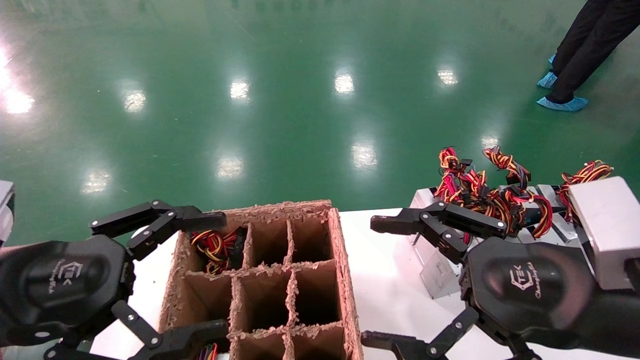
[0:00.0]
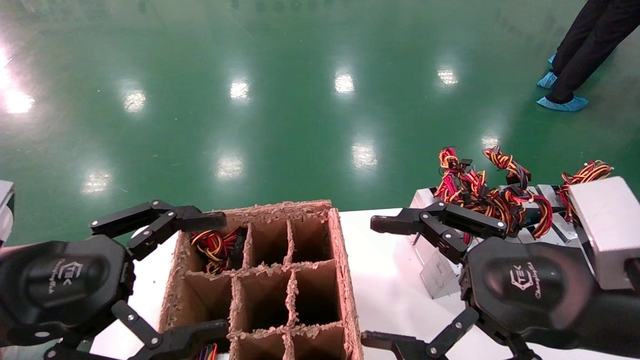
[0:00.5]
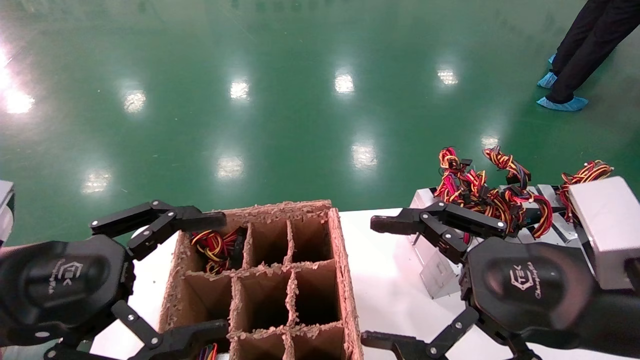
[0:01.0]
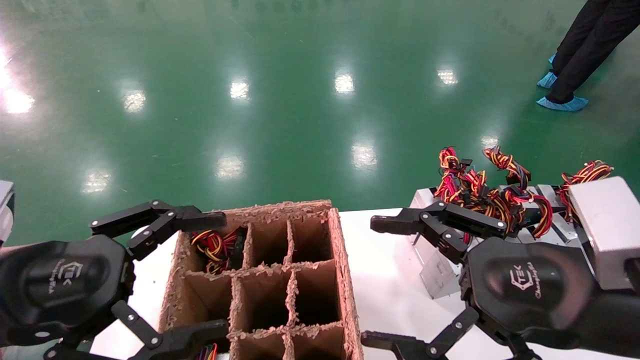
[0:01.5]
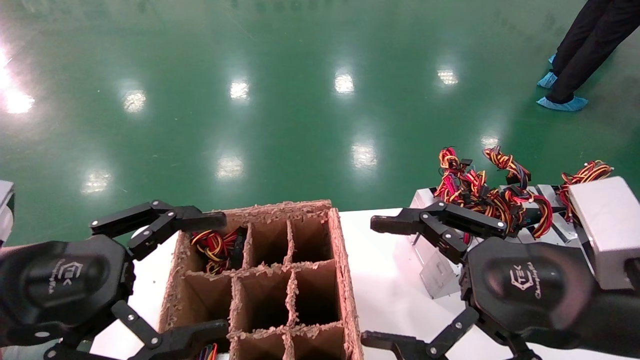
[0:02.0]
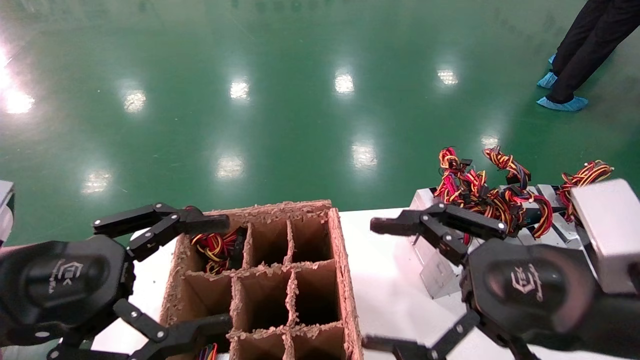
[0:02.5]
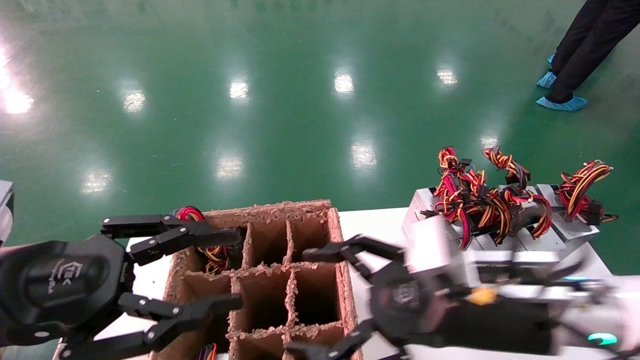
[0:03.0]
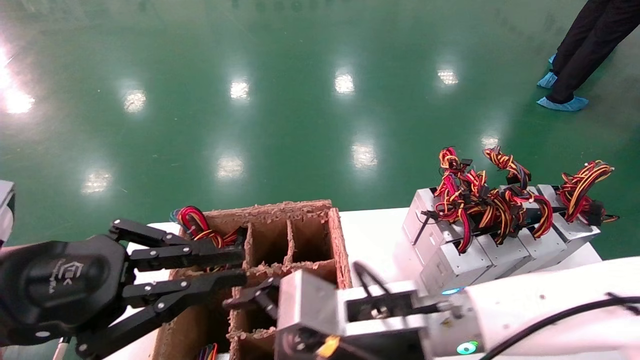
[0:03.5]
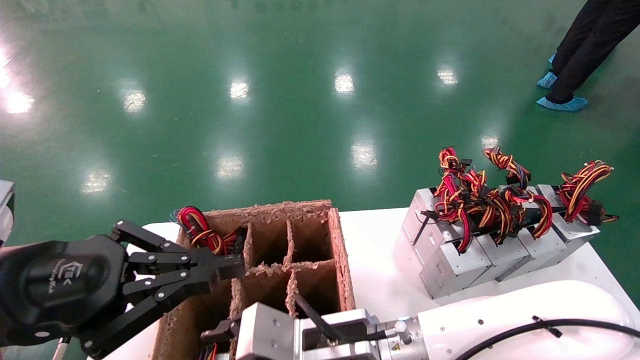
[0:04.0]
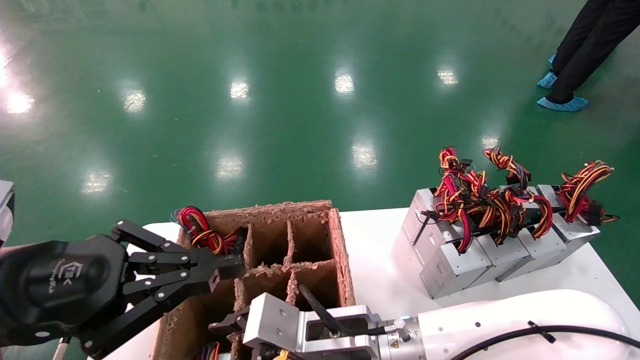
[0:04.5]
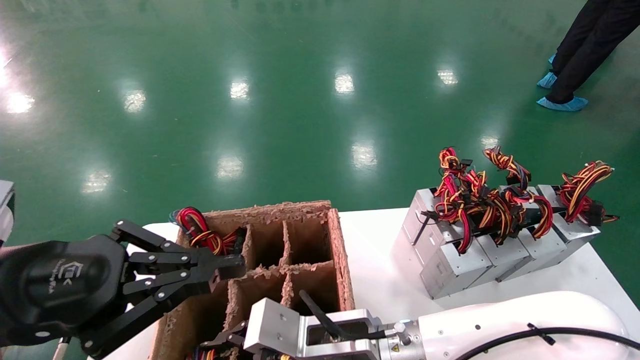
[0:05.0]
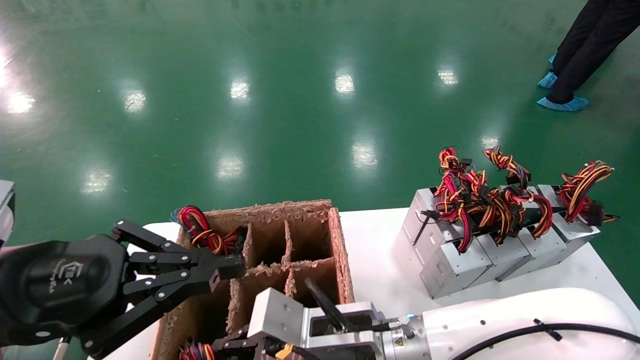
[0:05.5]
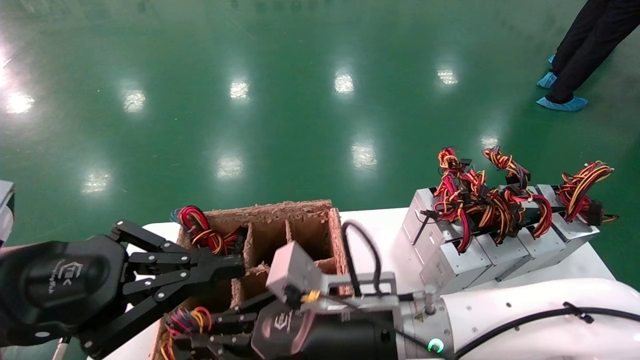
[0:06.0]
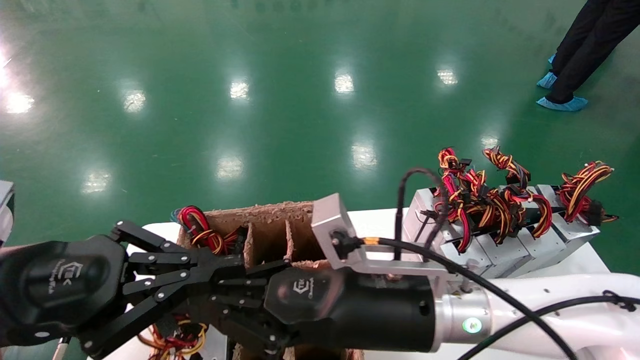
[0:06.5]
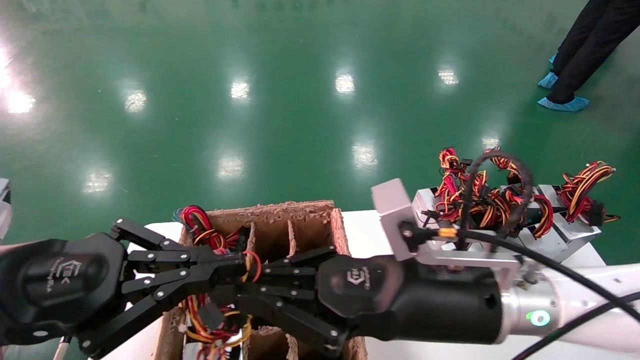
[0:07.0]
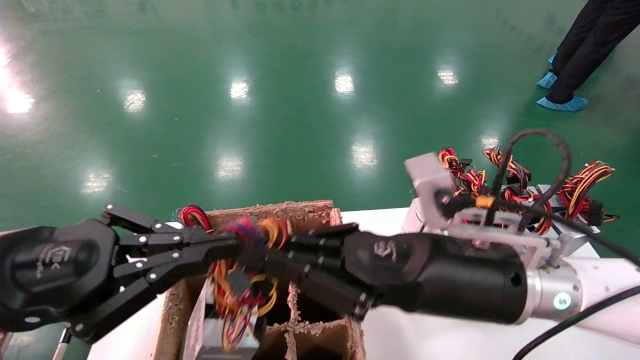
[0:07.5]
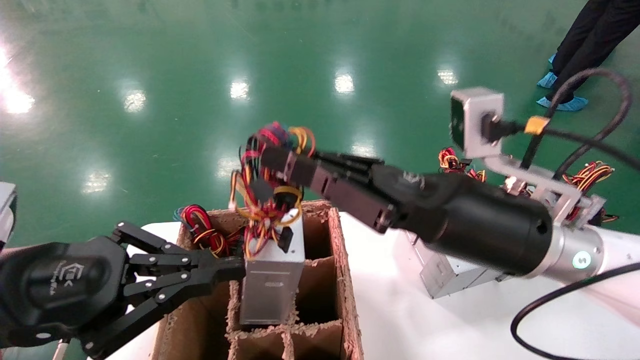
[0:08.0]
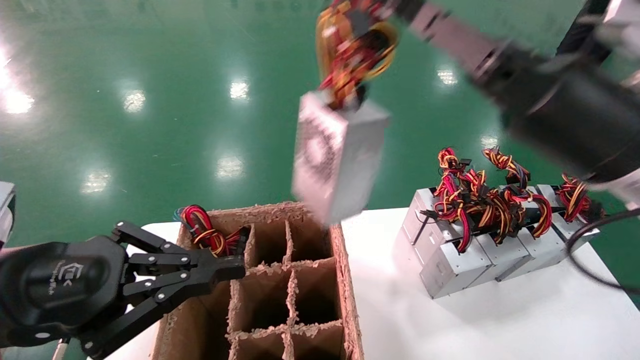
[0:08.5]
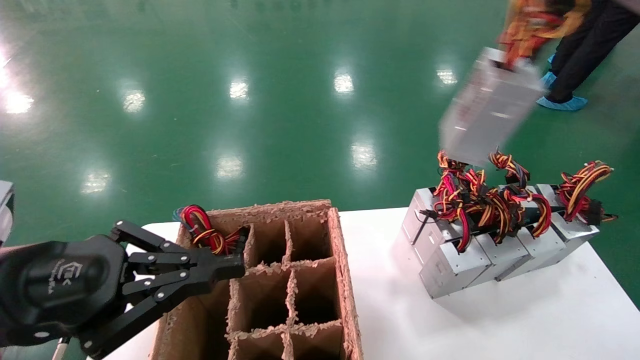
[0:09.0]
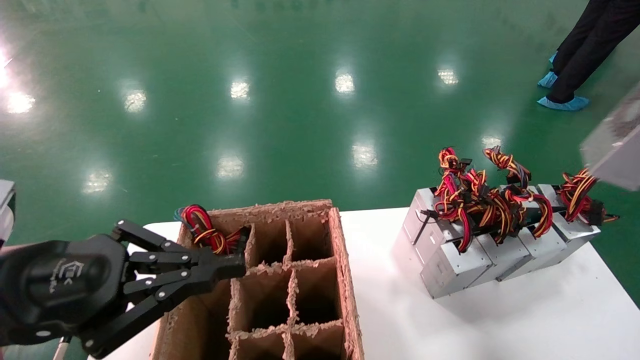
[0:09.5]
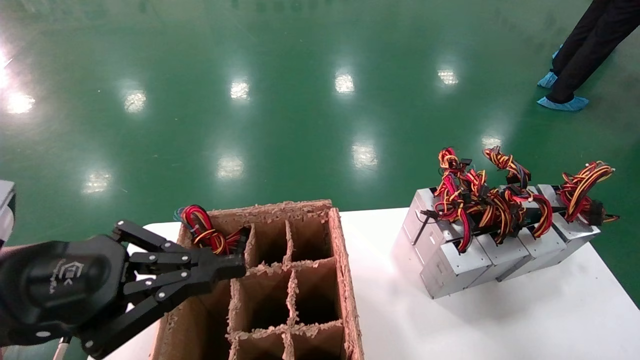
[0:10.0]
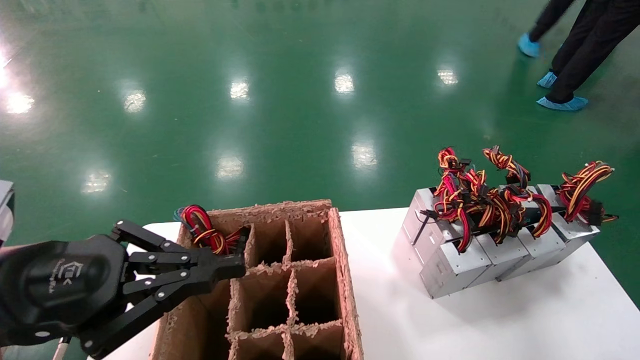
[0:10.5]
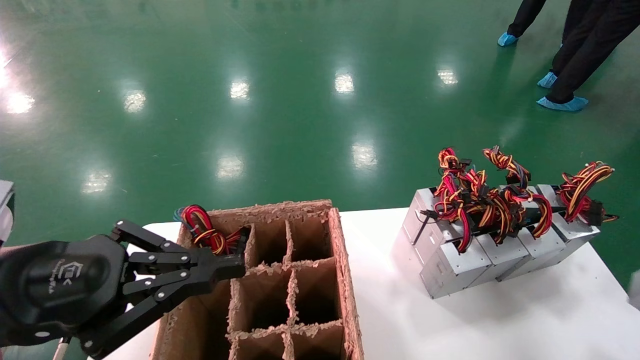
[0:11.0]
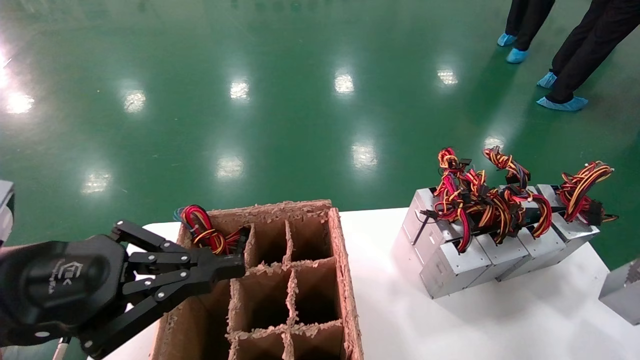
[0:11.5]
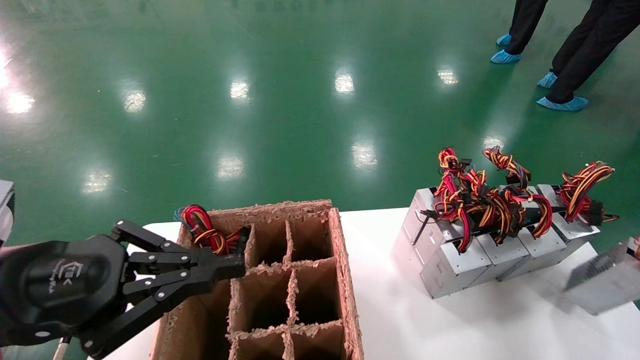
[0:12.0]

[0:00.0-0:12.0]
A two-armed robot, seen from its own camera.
Step, 0:03.0 to 0:05.0: Grab the main unit power supply from the containment box.
0:00.0 to 0:02.0: The two grippers keep their place.
0:02.0 to 0:04.0: The right gripper moves to the left, downward and forward, approximately 25 cm, while the left gripper closes its fingers.
0:04.0 to 0:06.0: The right gripper closes up.
0:06.0 to 0:08.0: The right gripper travels upward and to the right by roughly 15 cm.
0:08.0 to 0:10.0: The right gripper moves to the right, roughly 40 cm.
0:10.0 to 0:12.0: The right gripper goes approximately 20 cm downward and forward.

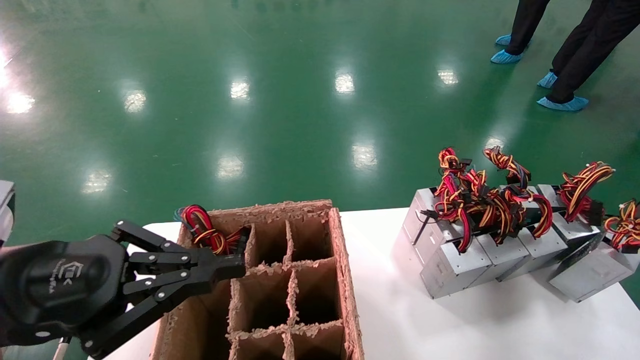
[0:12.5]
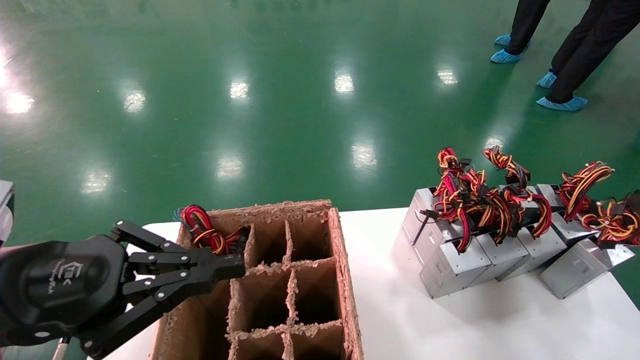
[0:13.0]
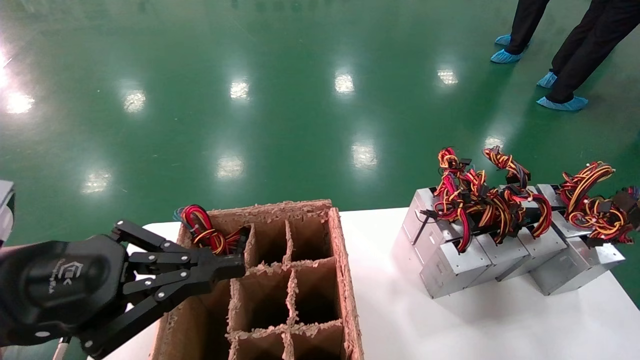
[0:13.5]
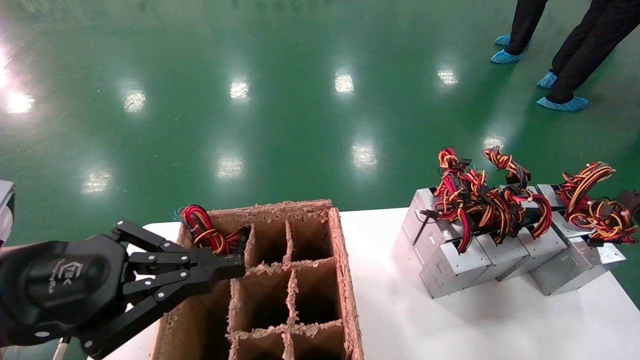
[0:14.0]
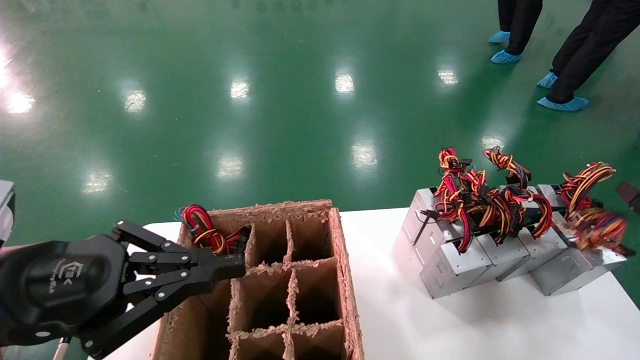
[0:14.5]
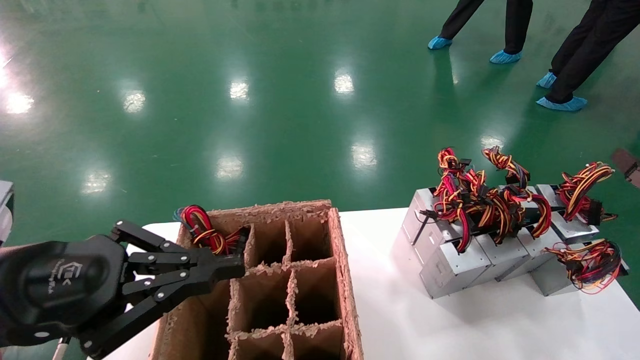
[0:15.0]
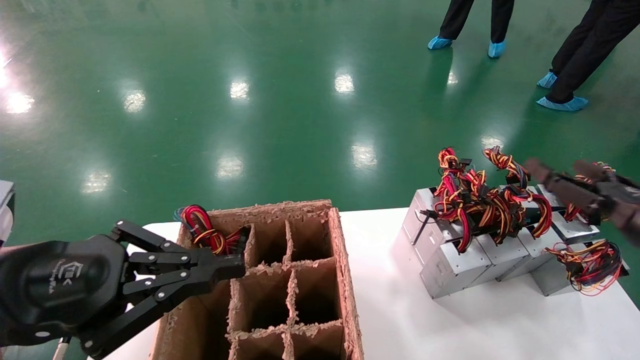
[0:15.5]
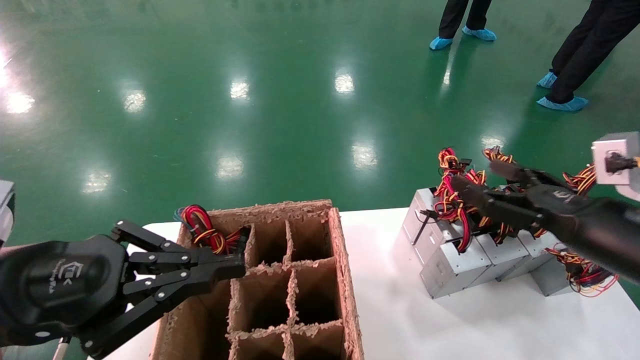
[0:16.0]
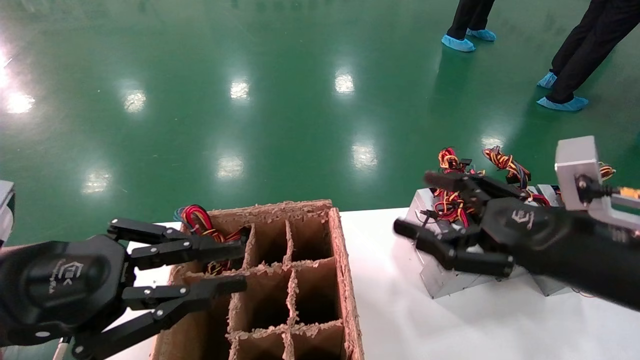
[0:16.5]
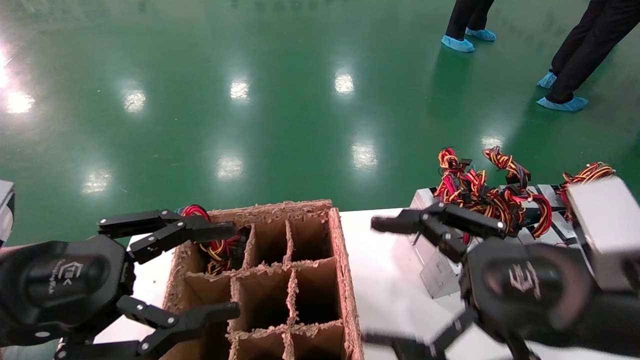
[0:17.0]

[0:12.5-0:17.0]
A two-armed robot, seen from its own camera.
0:12.5 to 0:14.5: The grippers stay close to where they were, moving slightly.
0:14.5 to 0:17.0: The left gripper opens up, while the right gripper moves to the left, roughly 25 cm, and opens up.

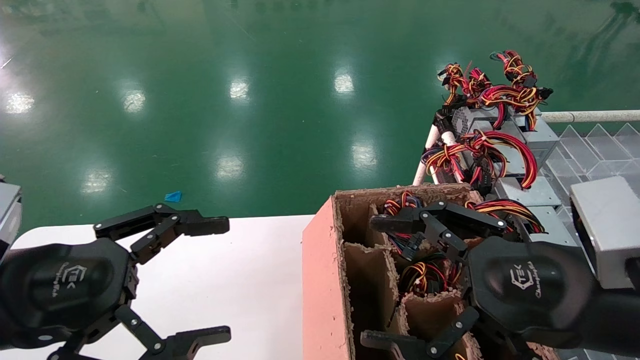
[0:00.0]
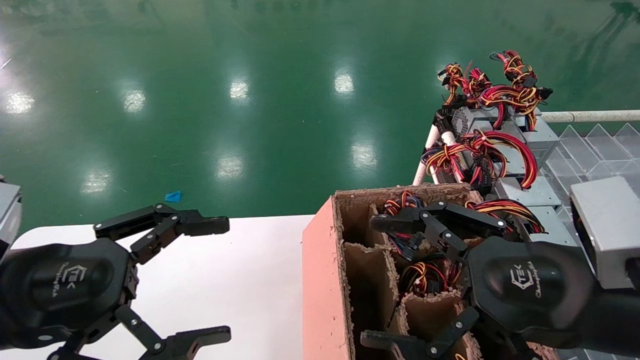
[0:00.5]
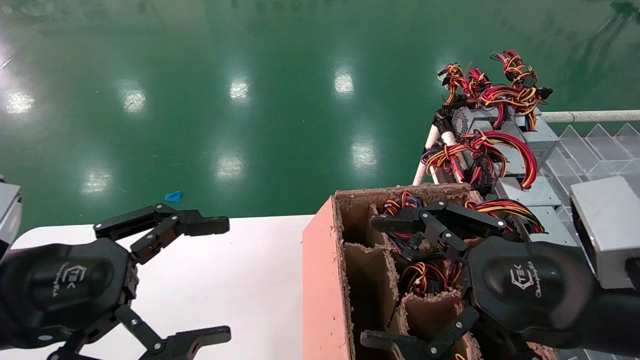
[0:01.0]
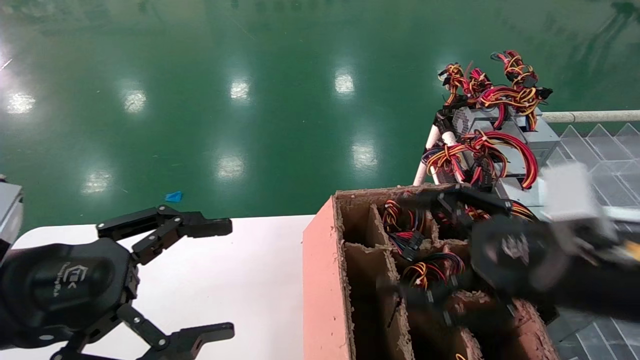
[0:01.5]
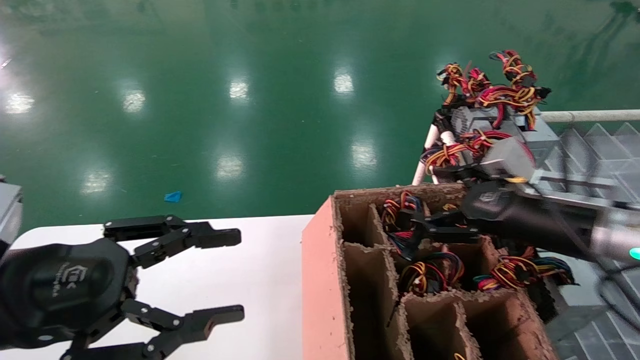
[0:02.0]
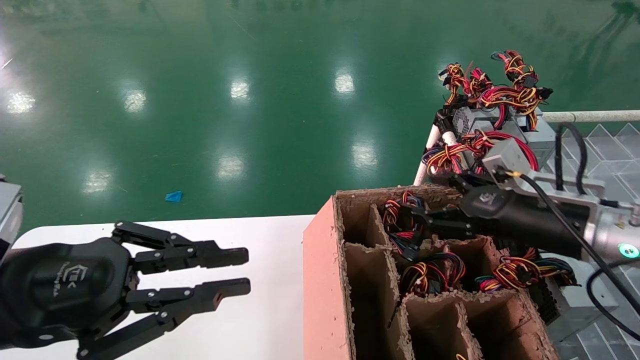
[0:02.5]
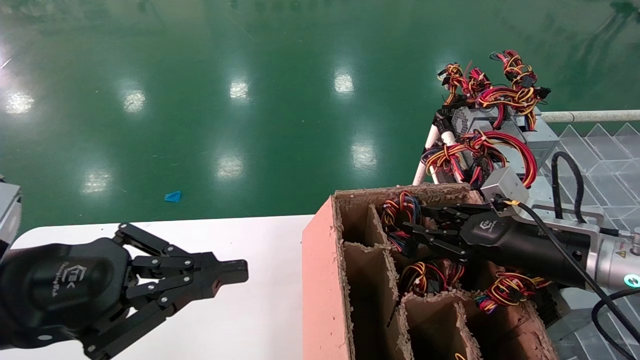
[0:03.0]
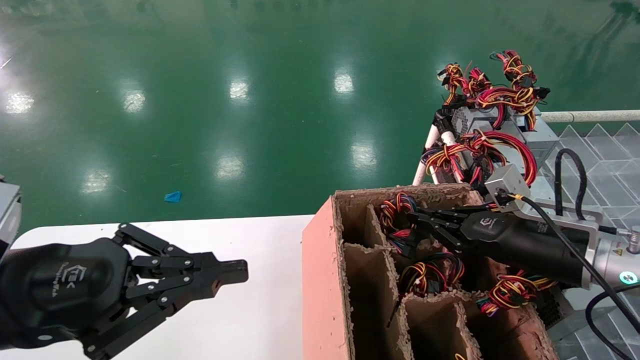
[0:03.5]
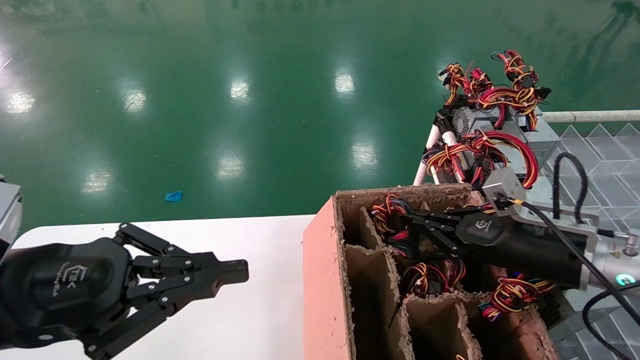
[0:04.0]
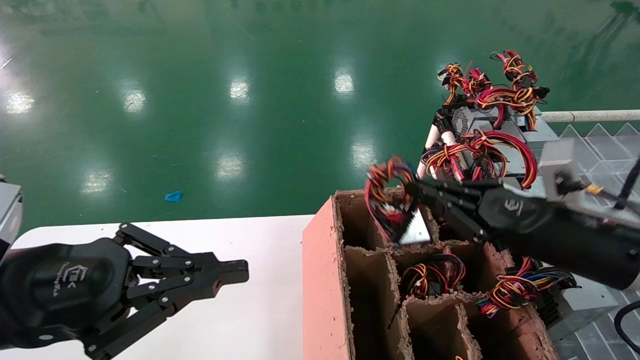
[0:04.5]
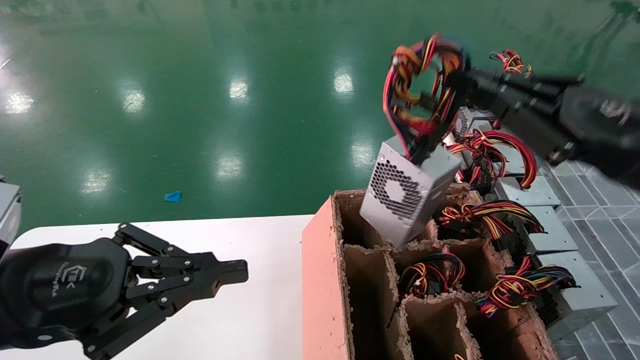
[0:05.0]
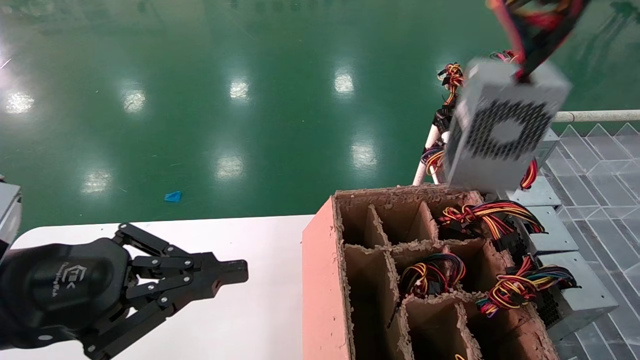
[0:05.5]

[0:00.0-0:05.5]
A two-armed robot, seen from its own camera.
Step, 0:01.5 to 0:04.0: Grab the main unit power supply from the containment box.
0:00.0 to 0:02.0: The right gripper shifts some 15 cm forward.
0:02.0 to 0:03.5: The left gripper closes its fingers. Meanwhile the right gripper changes place by some 5 cm, and closes up.
0:03.5 to 0:05.5: The right gripper moves upward and backward, approximately 25 cm.
